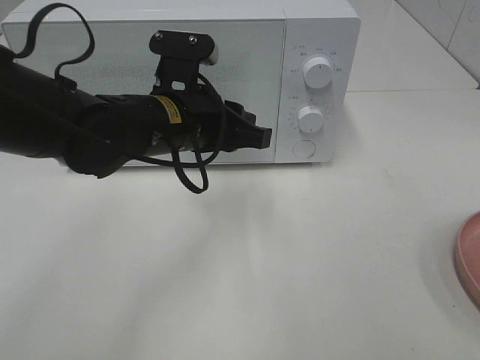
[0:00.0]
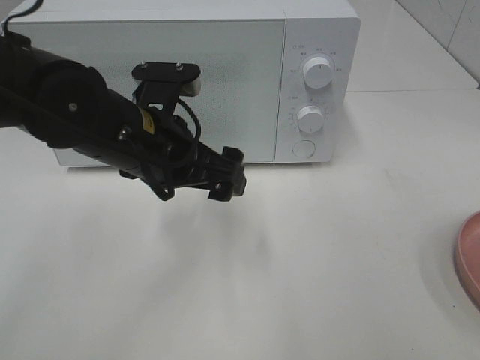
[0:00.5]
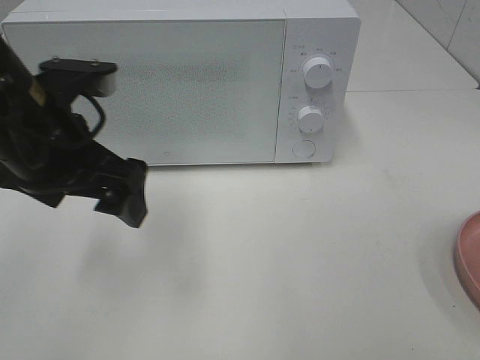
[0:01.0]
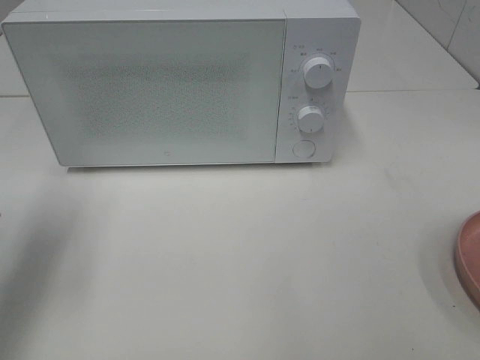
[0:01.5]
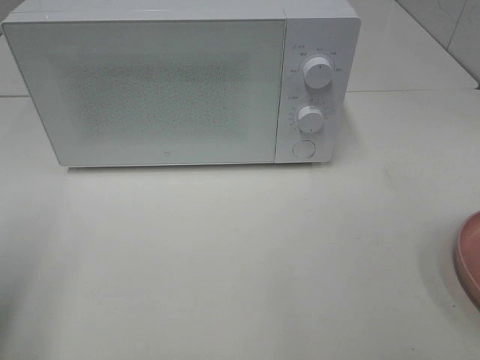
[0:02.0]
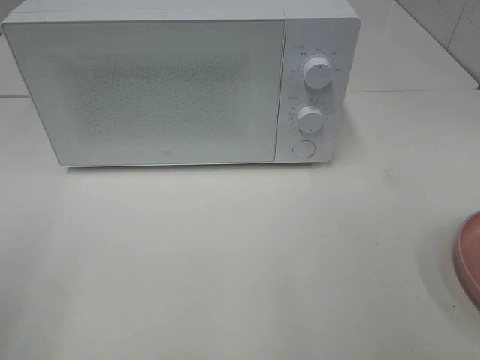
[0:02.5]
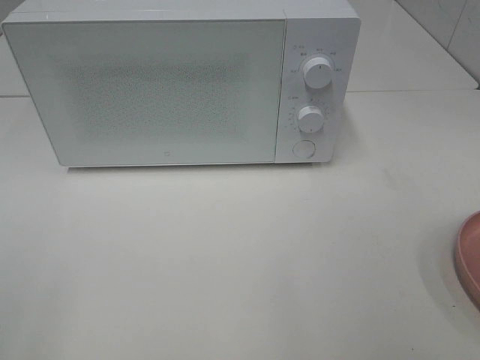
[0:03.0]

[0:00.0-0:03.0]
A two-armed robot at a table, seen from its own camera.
Task of the whole recording: Heat the burger.
0:00.0 to 0:01.5: The left gripper travels to the left by approximately 25 cm, and opens.
0:01.5 to 0:03.0: The left gripper shifts roughly 25 cm backward.
